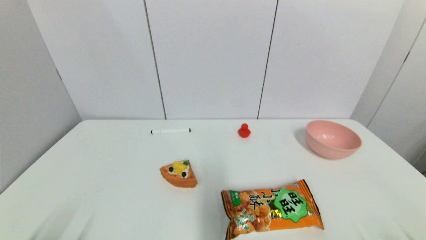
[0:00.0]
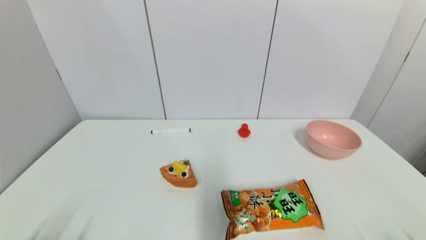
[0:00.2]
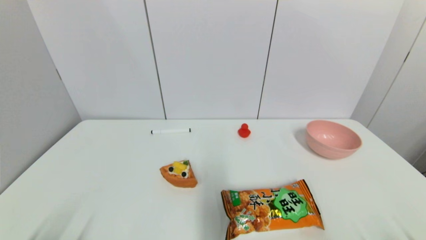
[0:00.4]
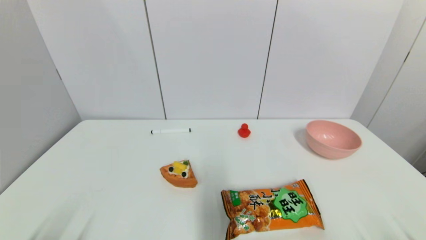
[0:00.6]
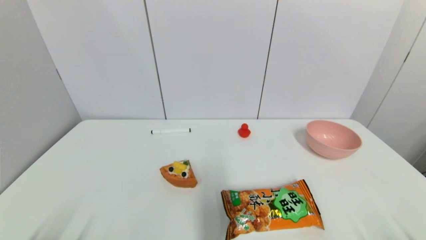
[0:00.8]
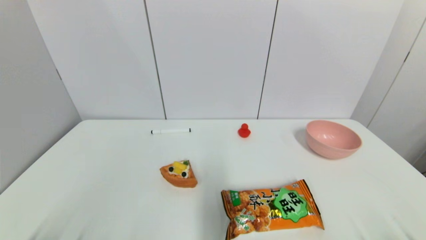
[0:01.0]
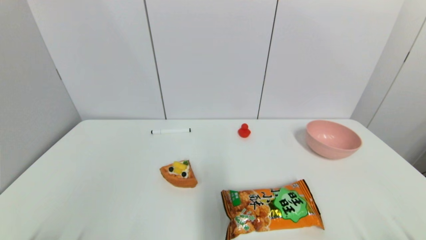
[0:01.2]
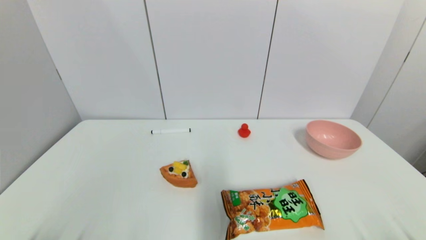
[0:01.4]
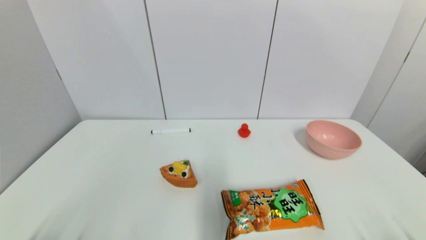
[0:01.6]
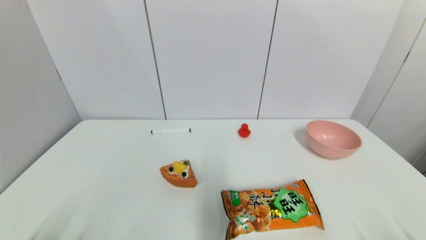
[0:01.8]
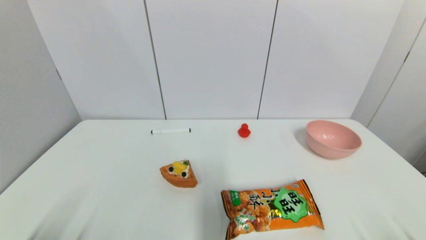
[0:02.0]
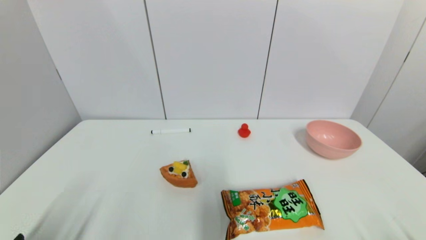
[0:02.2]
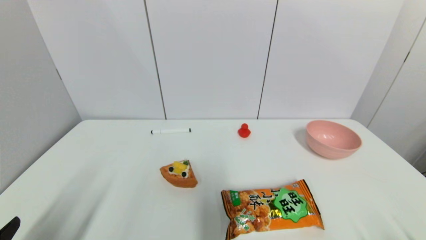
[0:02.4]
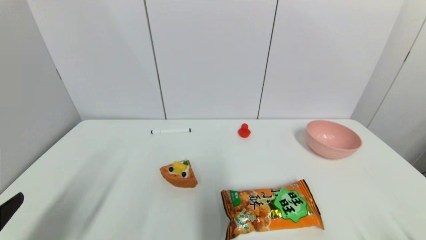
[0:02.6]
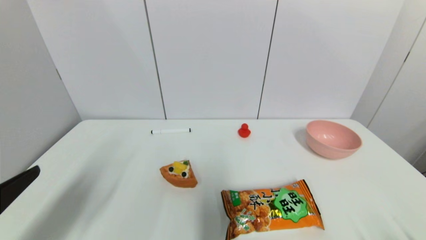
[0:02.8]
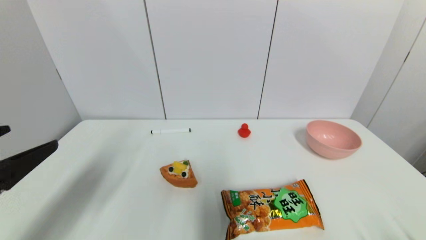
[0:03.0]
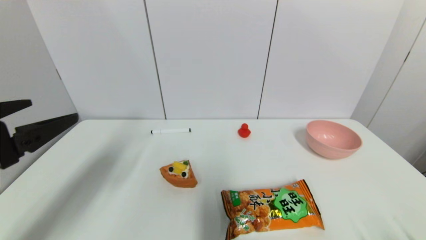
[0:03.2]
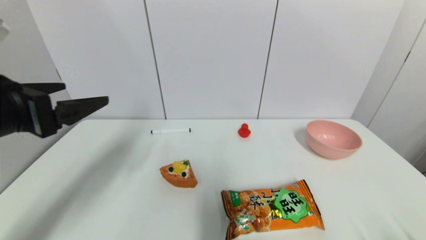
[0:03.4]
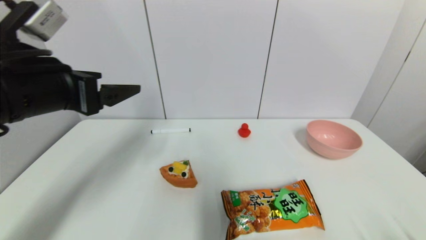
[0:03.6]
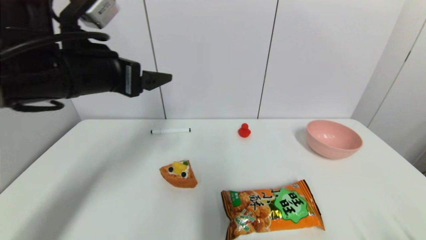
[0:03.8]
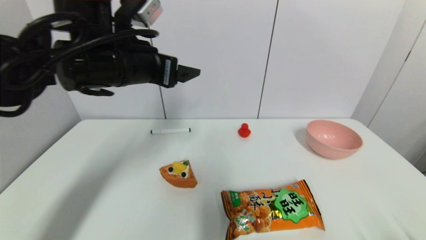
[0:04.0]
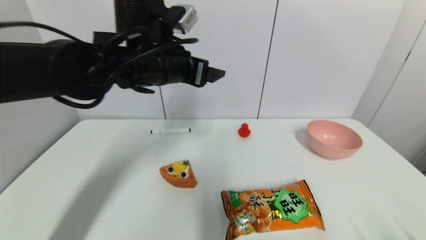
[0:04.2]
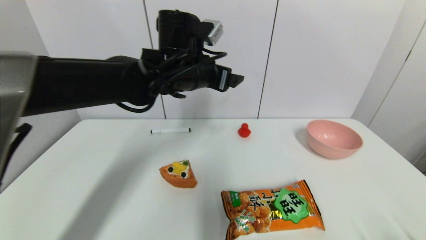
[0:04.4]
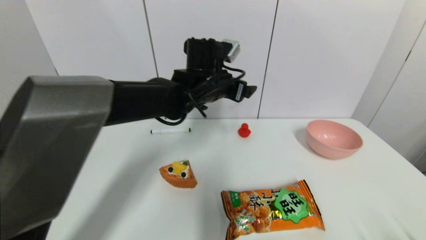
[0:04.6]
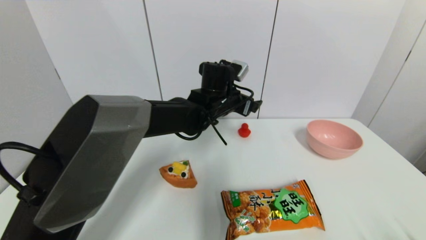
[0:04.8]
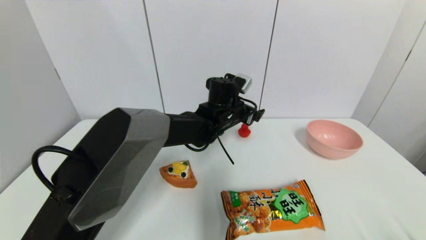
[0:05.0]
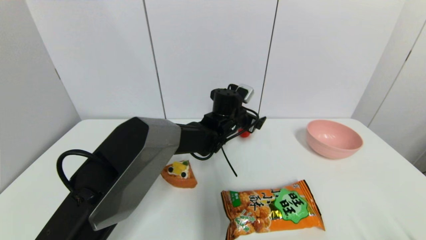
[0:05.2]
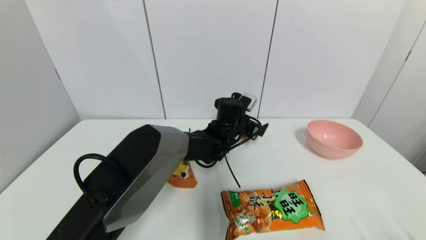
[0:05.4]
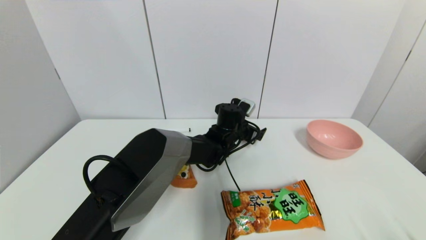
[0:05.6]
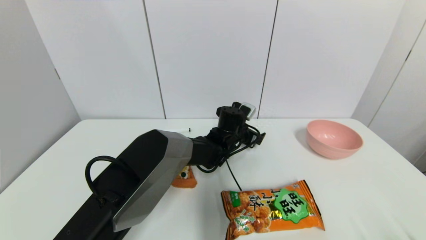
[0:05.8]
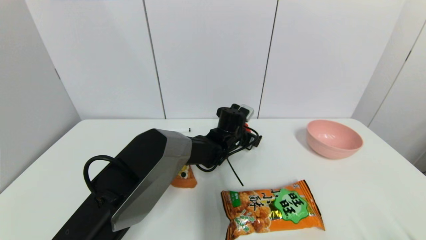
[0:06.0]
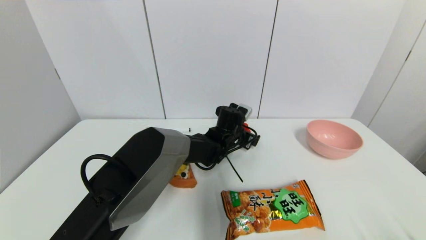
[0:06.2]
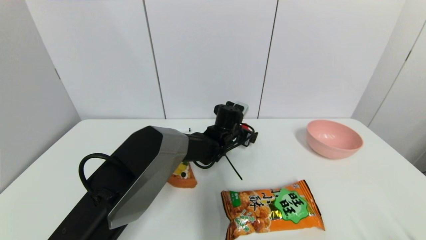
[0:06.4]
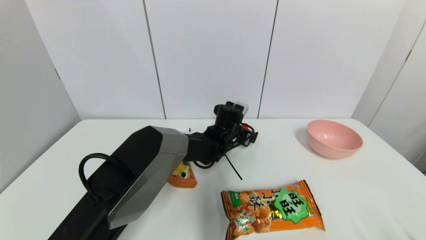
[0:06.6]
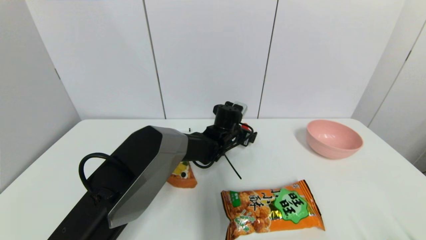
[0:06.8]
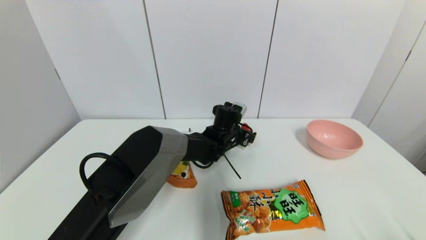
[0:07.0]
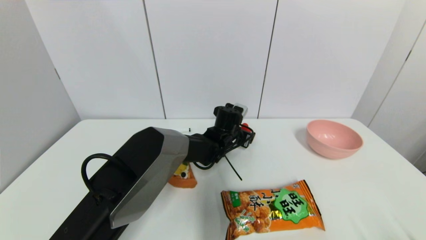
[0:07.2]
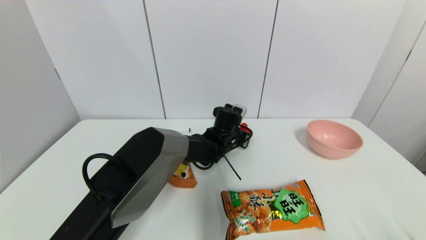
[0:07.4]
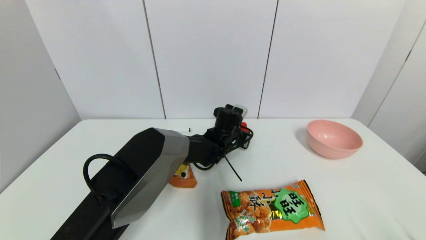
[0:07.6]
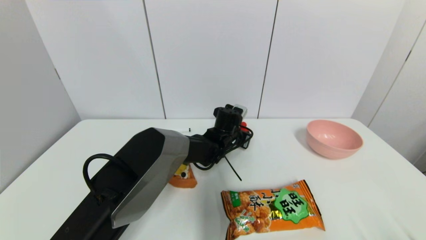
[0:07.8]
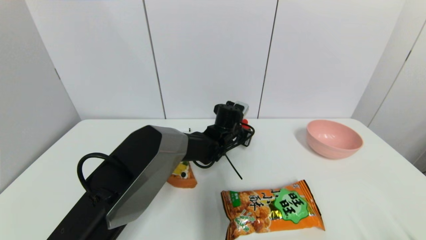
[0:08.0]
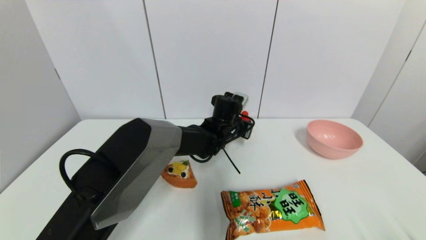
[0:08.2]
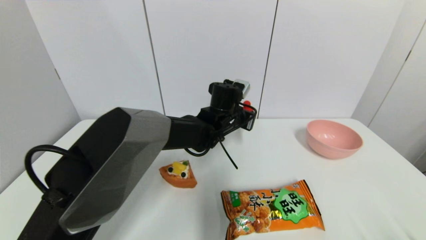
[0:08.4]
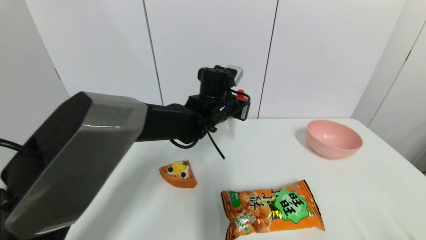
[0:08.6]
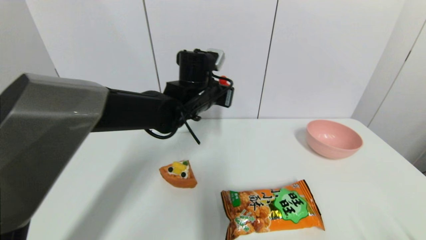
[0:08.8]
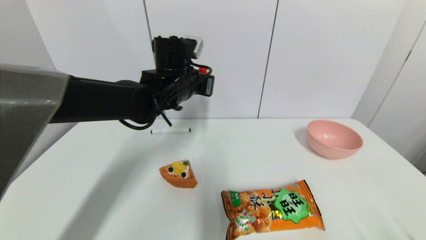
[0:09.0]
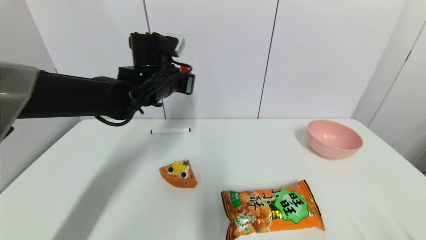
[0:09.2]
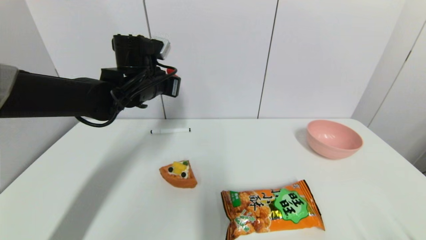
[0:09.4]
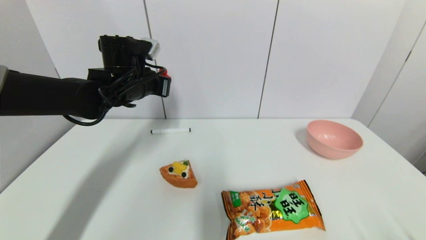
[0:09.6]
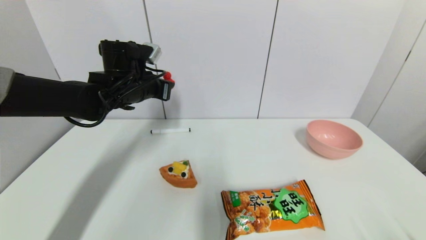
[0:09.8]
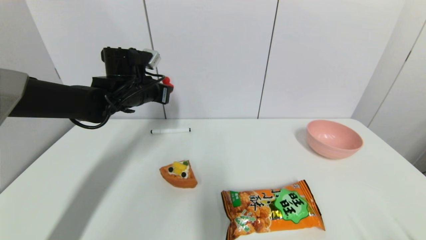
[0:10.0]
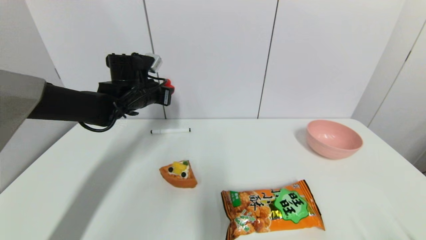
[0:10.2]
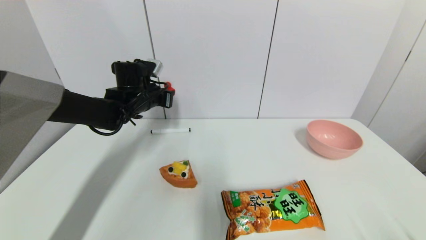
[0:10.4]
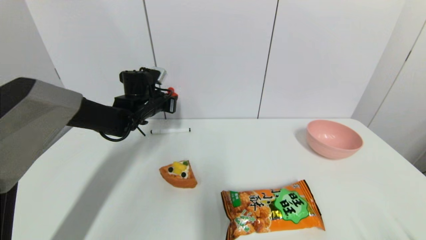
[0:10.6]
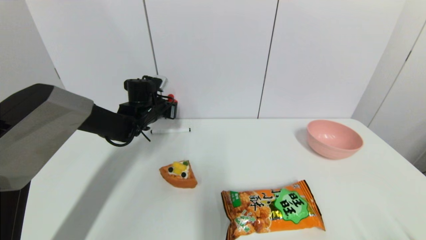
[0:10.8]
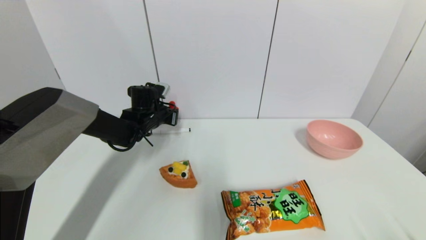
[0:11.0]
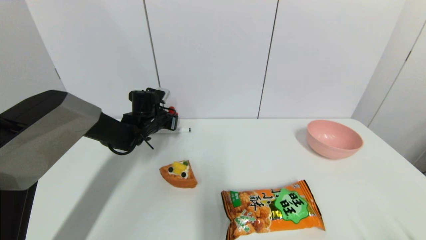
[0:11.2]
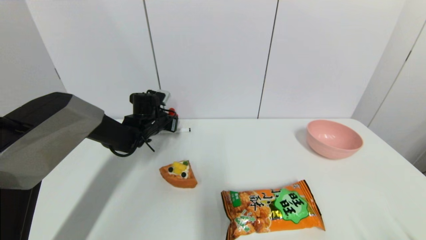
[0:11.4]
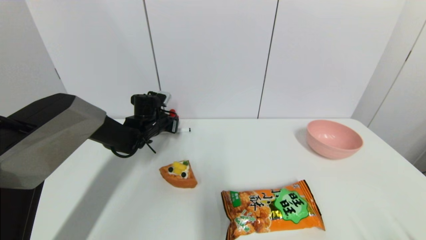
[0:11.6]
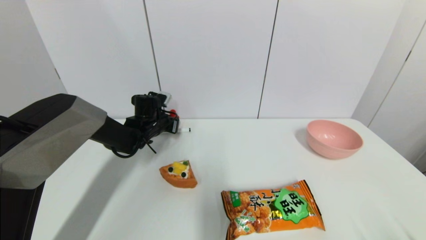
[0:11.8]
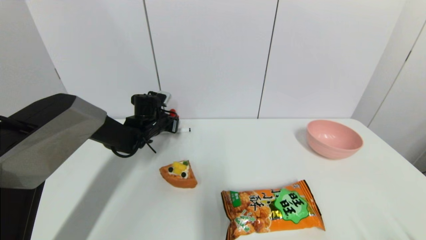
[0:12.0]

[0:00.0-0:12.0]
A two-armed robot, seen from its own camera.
Step, 0:02.4 to 0:08.0: Grasp the red duck with left gripper.
0:00.0 to 0:01.6: Both grippers stay put.
0:01.6 to 0:03.0: The left gripper is displaced upward and forward by roughly 20 cm.
0:03.0 to 0:04.4: The left gripper is displaced forward and to the right by some 35 cm.
0:04.4 to 0:06.0: The left gripper goes roughly 25 cm downward and to the right.
0:06.0 to 0:07.6: The left gripper closes its fingers.
0:07.6 to 0:09.0: The left gripper moves upward and to the left, roughly 20 cm.
0:09.0 to 0:10.4: The left gripper moves to the left, downward and forward, approximately 15 cm.
0:10.4 to 0:12.0: The left gripper travels downward by approximately 10 cm.

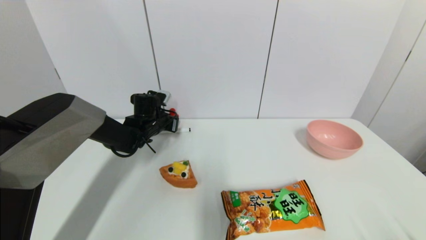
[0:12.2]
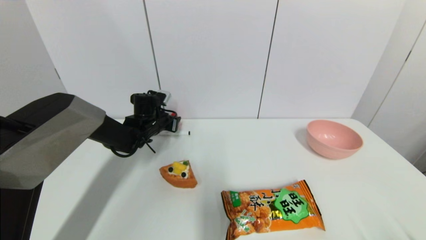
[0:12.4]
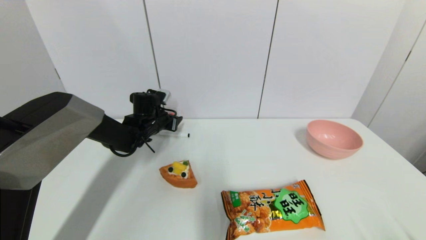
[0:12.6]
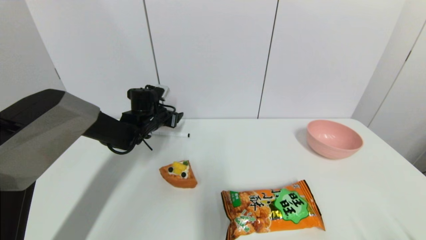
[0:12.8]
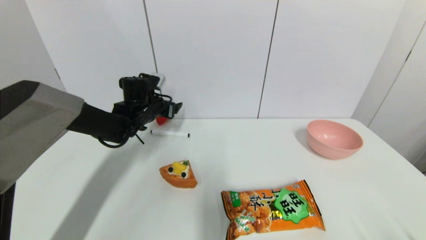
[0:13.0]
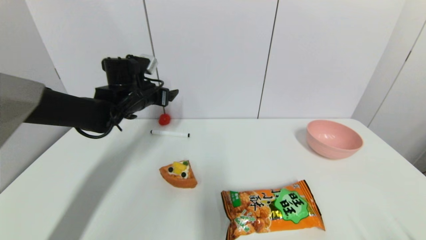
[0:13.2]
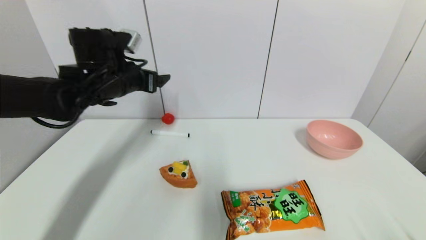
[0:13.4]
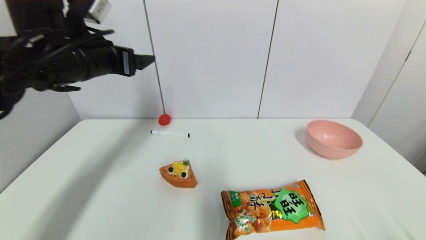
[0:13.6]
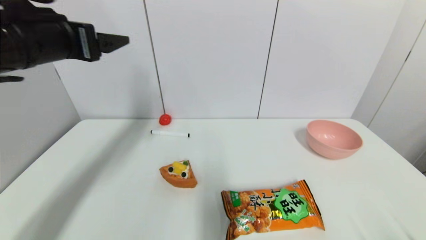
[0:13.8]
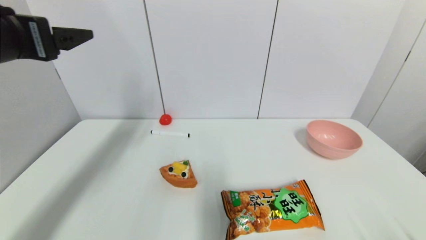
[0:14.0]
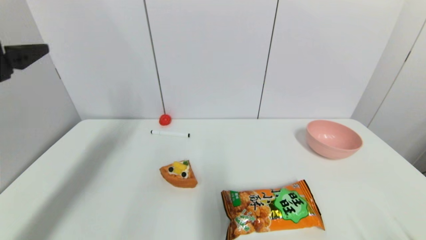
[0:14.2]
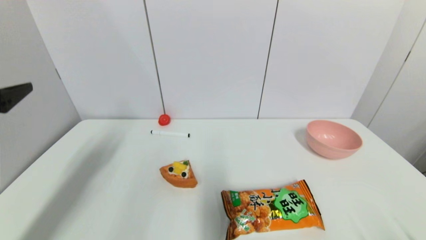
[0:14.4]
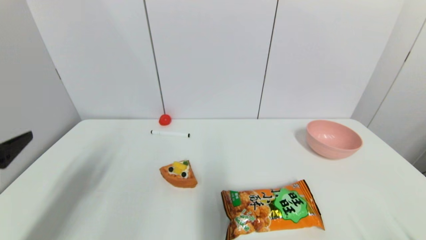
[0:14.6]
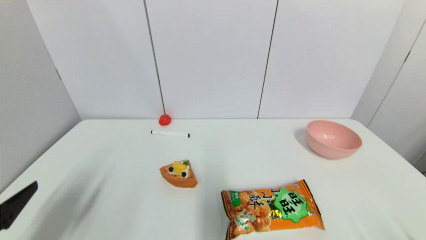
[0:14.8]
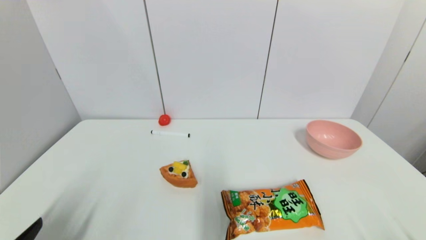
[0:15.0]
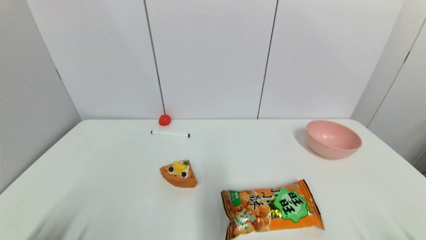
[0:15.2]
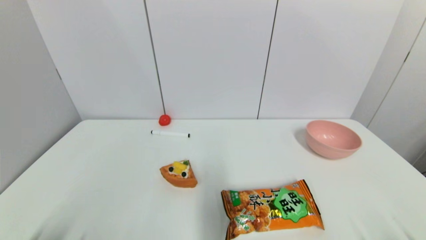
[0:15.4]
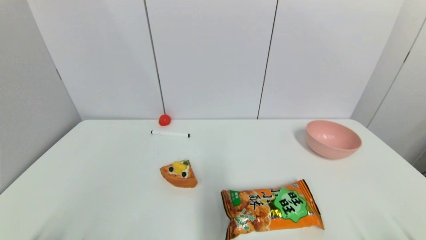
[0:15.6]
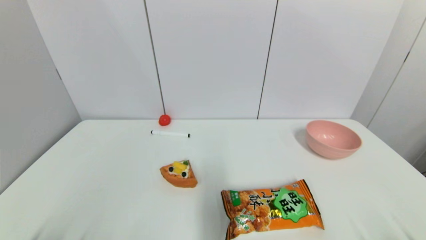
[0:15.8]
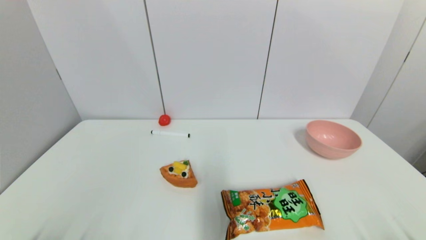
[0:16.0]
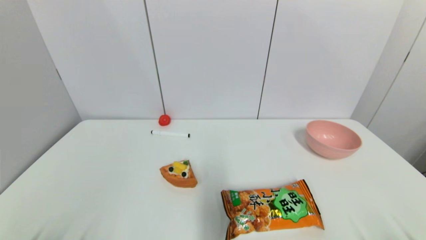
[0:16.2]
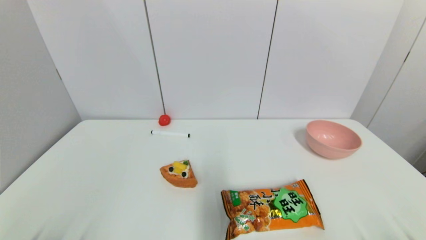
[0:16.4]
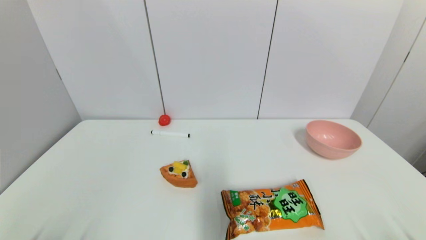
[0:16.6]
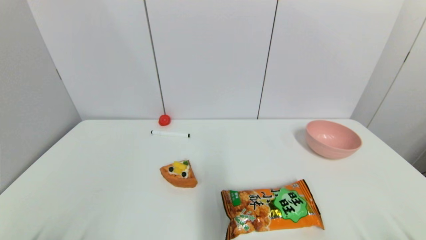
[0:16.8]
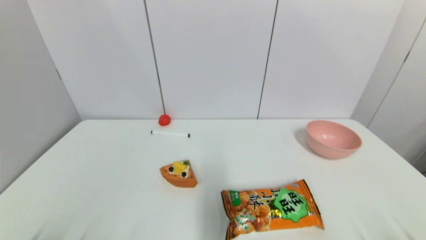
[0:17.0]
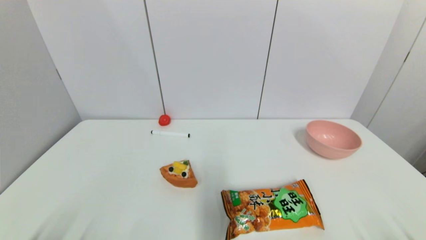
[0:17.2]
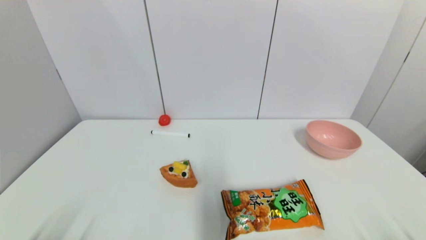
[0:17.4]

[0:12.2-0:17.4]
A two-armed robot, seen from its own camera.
0:12.2 to 0:14.0: The left gripper is displaced upward and backward by about 35 cm, and opens its fingers.
0:14.0 to 0:15.6: The left gripper moves downward and backward, approximately 35 cm.
0:15.6 to 0:17.4: Both grippers stay about where they are.
